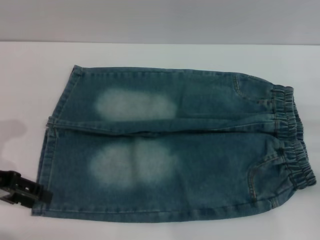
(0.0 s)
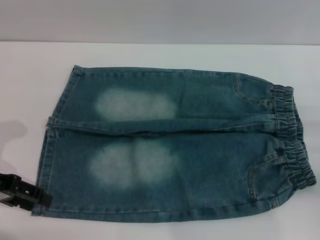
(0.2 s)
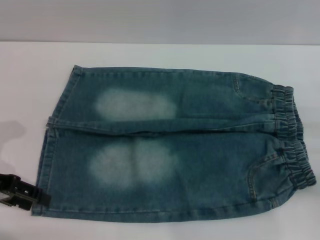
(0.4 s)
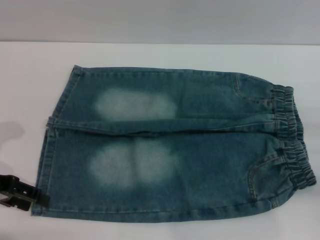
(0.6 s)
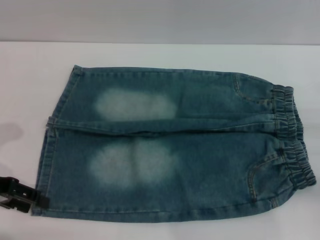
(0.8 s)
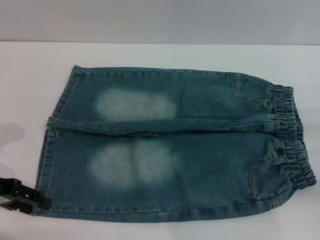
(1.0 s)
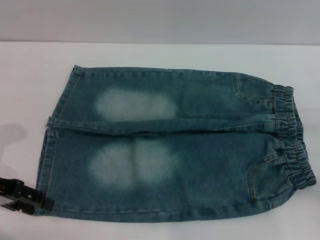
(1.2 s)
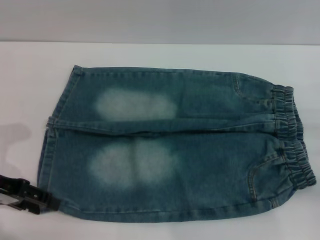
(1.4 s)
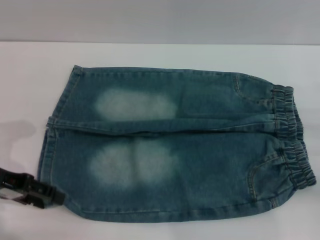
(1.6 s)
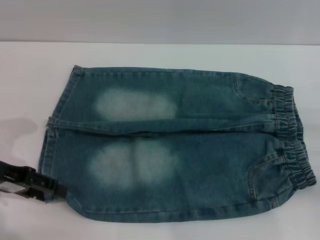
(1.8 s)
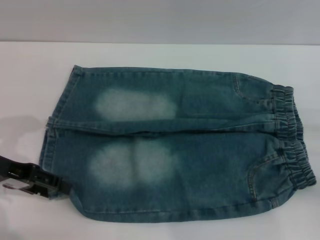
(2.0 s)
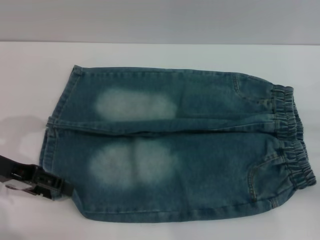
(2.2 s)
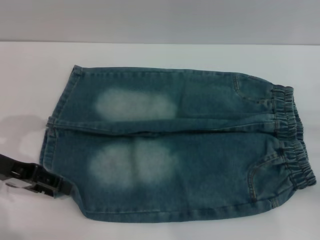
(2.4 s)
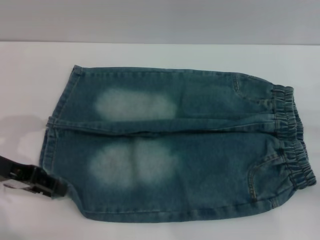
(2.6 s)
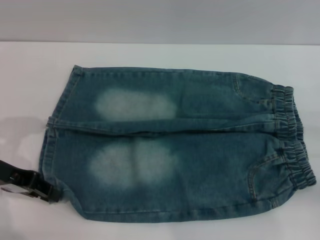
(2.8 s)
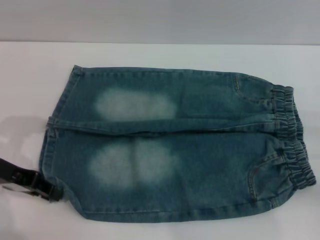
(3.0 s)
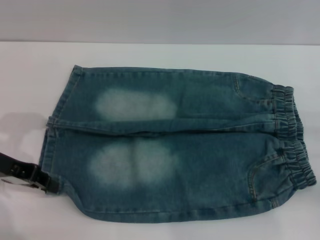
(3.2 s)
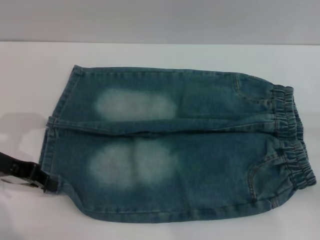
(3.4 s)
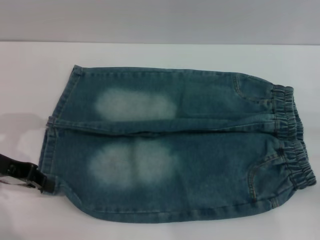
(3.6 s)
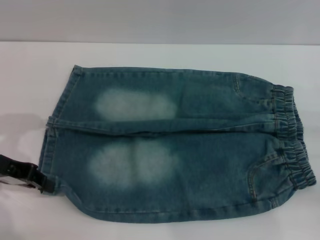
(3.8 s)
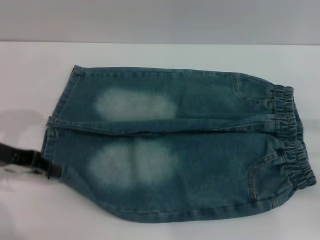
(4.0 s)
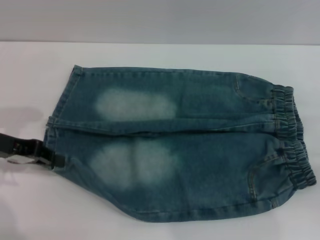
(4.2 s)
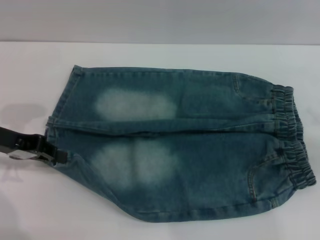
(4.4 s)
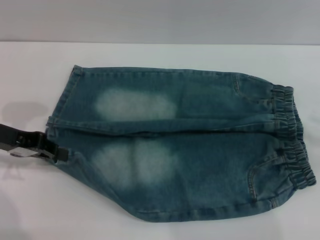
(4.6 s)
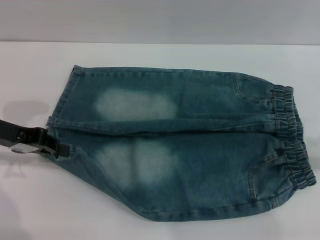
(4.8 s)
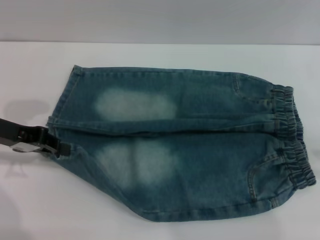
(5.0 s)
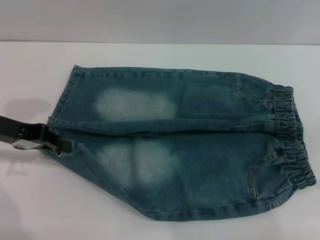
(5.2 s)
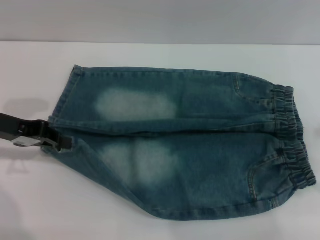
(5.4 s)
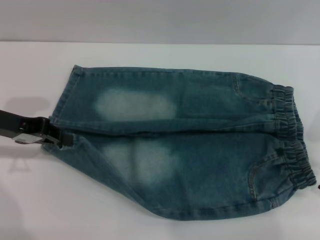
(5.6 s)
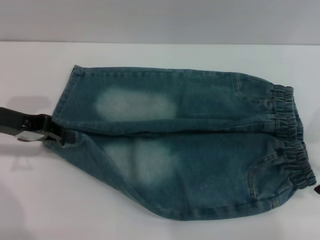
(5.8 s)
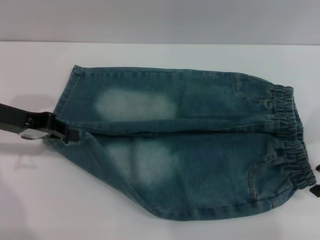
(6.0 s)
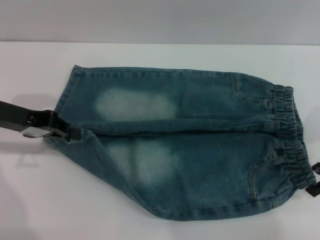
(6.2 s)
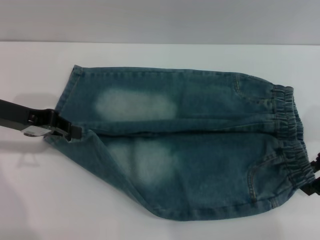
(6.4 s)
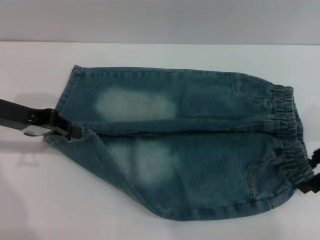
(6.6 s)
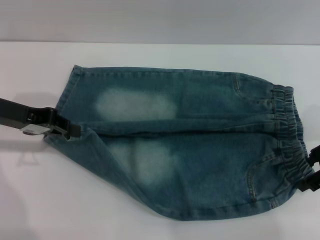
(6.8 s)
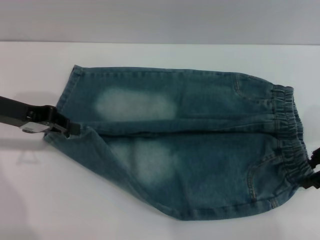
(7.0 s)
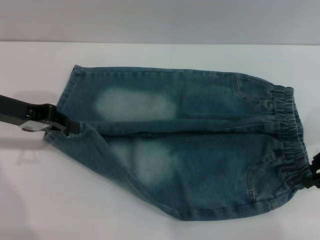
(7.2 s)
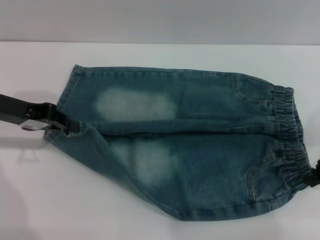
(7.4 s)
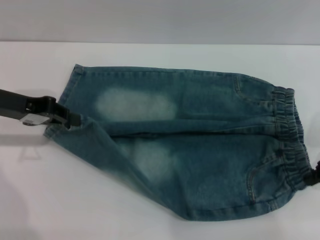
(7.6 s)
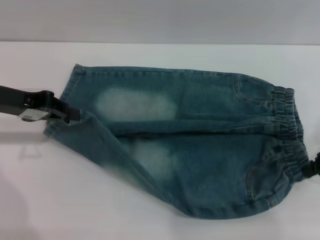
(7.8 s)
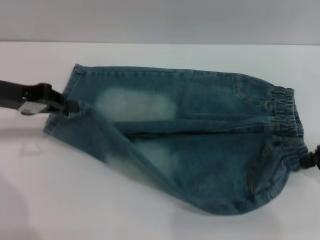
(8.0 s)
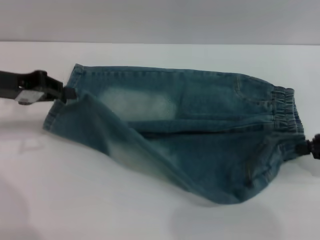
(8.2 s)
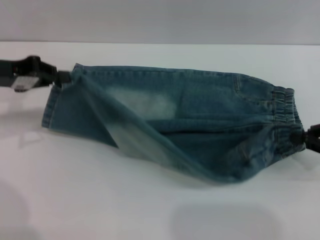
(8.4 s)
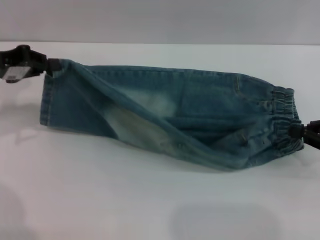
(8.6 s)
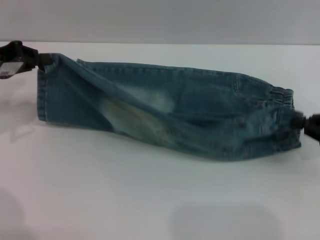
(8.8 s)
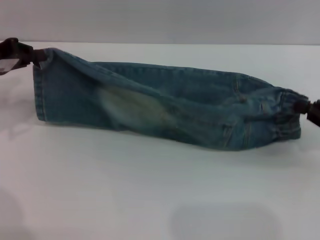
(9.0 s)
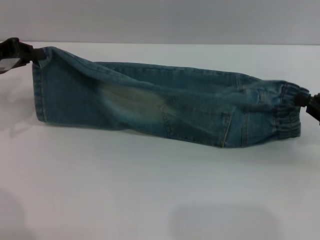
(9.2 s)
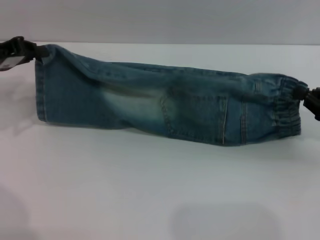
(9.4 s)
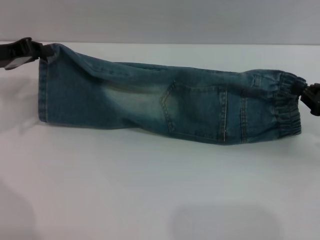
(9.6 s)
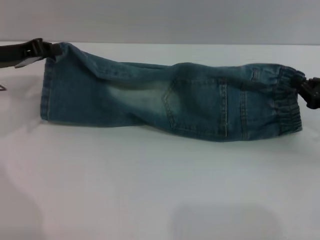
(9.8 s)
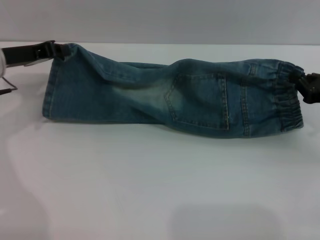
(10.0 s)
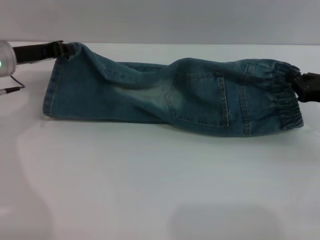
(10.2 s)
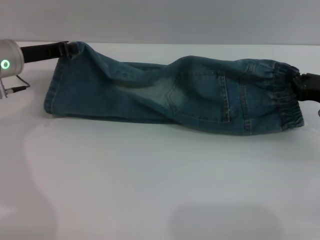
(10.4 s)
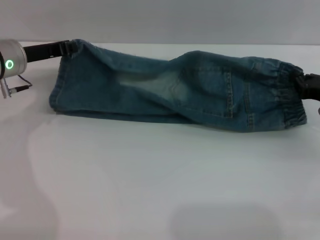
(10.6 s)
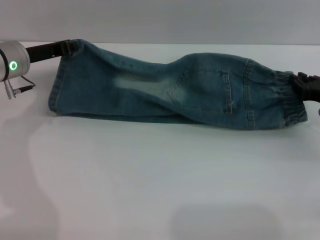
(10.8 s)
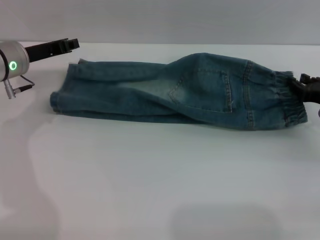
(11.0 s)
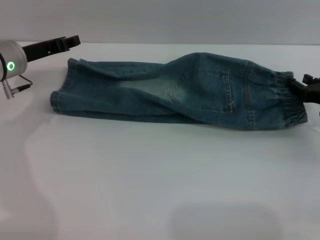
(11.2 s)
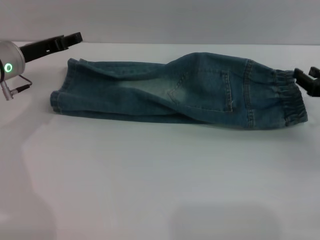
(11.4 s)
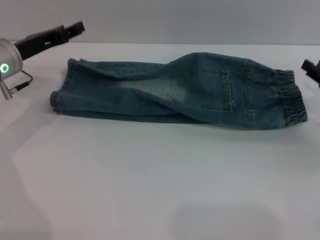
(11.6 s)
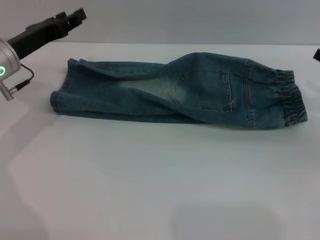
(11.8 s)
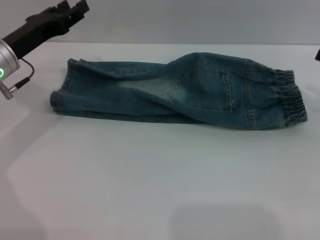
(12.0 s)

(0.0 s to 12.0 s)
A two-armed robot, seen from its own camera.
Step, 0.0 s - 11.6 s: Fold the bottom of the pants upward with both grippers.
0.0 s - 1.6 s: The grippers move only a little.
1.6 s - 3.0 s: The left gripper closes up.
3.0 s - 4.4 s: The right gripper goes some 10 cm upward.
4.4 s - 6.0 s: The right gripper shifts about 10 cm to the left and forward.
6.0 s - 7.6 s: The right gripper closes its fingers.
7.6 s - 9.0 s: The left gripper moves approximately 5 cm. The right gripper shifts by roughly 5 cm.
9.0 s - 10.4 s: The right gripper travels forward by about 5 cm, while the left gripper goes approximately 10 cm to the right.
10.4 s - 12.0 s: The right gripper travels upward and to the right by roughly 10 cm, and opens; the left gripper opens its fingers.

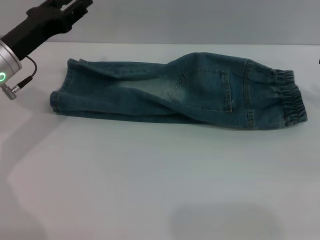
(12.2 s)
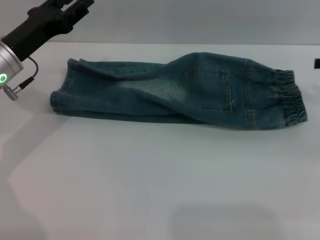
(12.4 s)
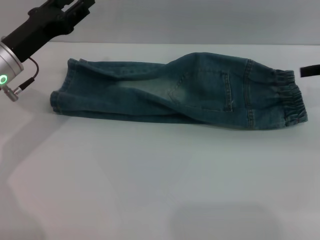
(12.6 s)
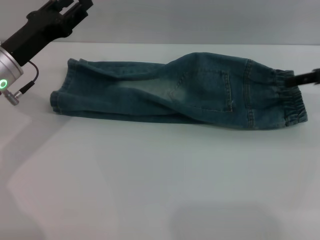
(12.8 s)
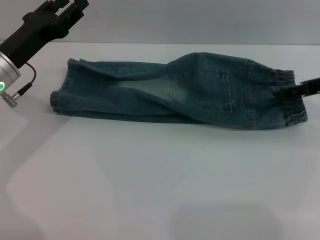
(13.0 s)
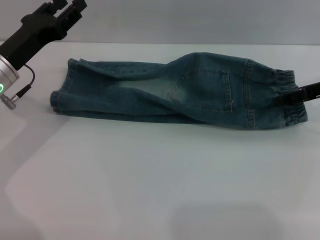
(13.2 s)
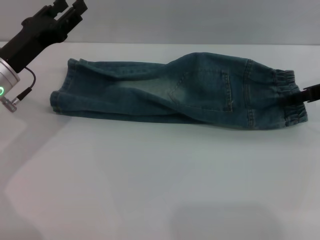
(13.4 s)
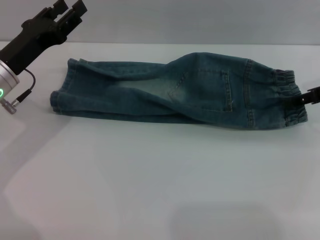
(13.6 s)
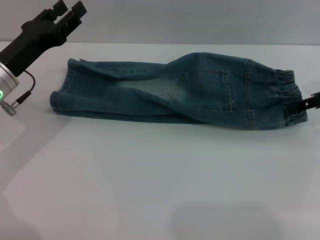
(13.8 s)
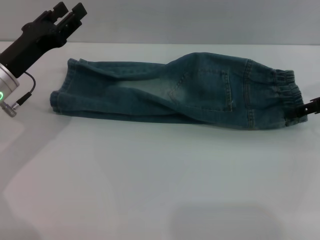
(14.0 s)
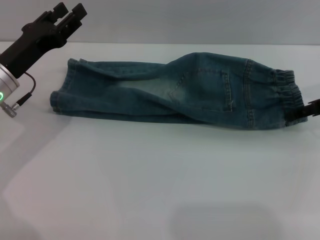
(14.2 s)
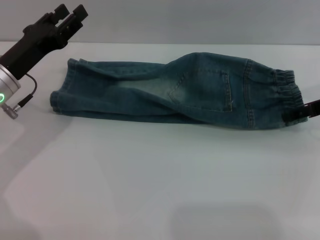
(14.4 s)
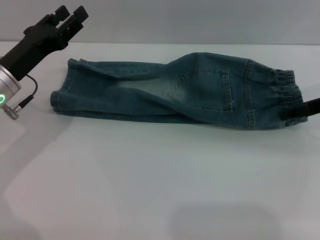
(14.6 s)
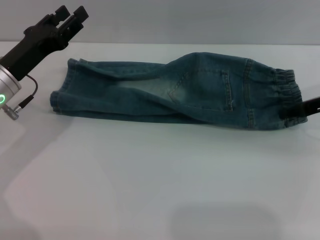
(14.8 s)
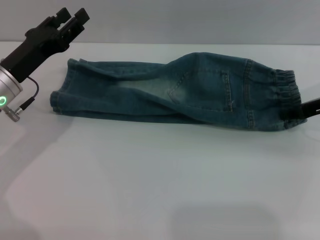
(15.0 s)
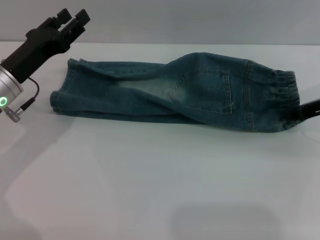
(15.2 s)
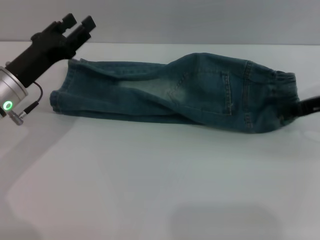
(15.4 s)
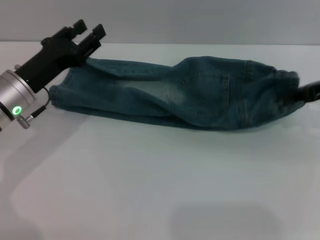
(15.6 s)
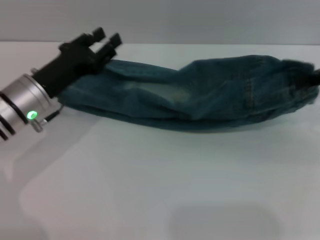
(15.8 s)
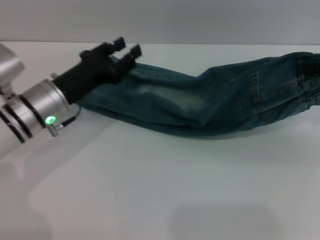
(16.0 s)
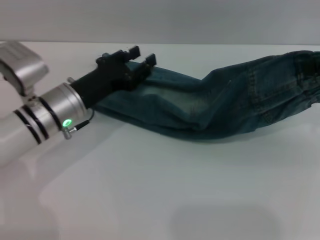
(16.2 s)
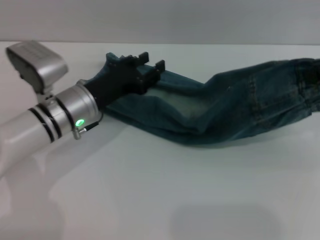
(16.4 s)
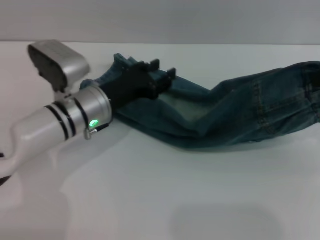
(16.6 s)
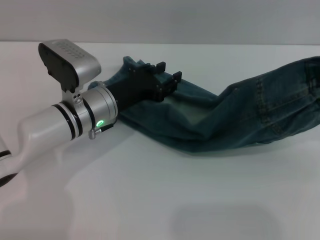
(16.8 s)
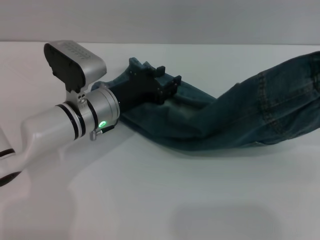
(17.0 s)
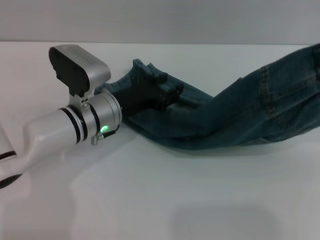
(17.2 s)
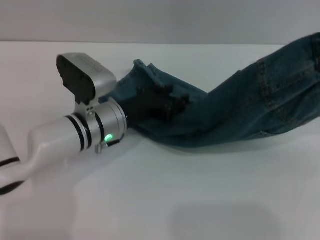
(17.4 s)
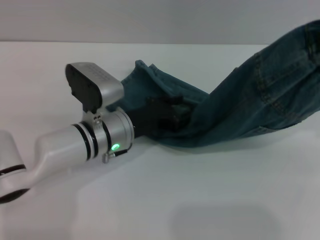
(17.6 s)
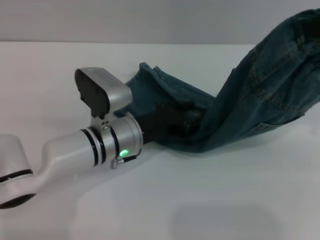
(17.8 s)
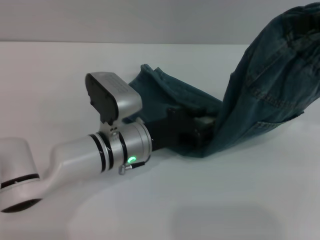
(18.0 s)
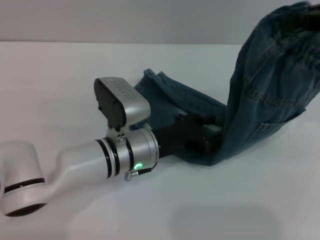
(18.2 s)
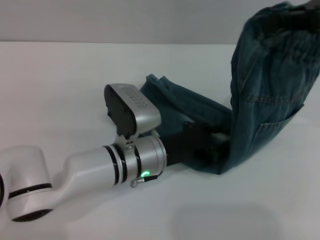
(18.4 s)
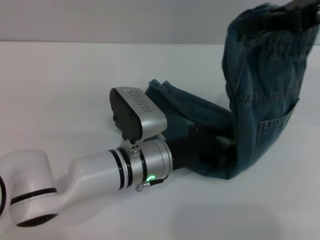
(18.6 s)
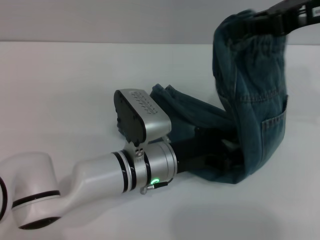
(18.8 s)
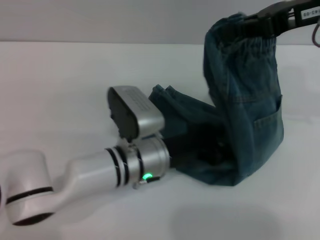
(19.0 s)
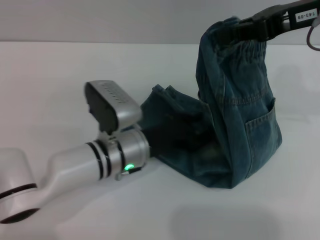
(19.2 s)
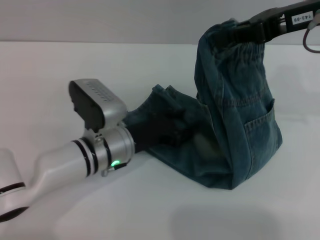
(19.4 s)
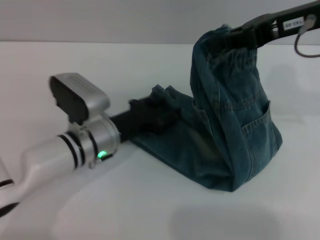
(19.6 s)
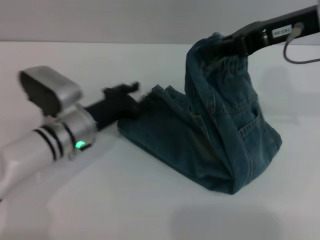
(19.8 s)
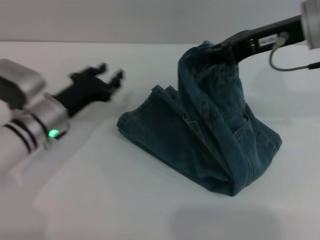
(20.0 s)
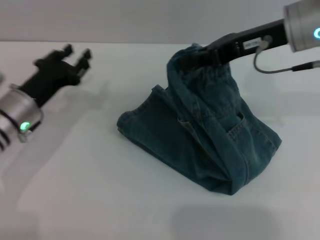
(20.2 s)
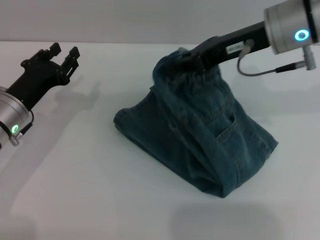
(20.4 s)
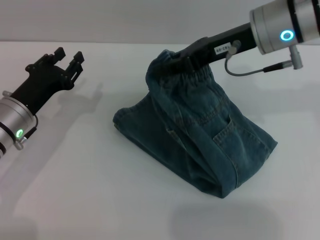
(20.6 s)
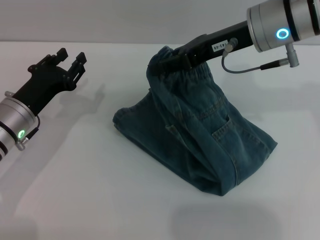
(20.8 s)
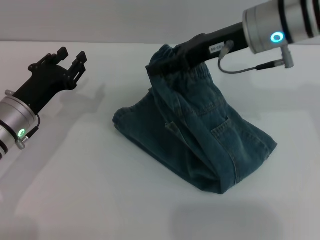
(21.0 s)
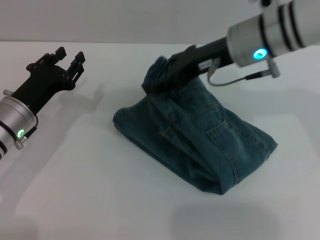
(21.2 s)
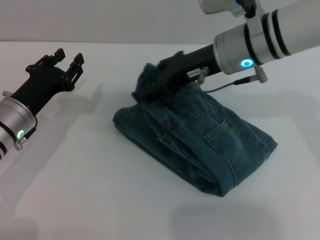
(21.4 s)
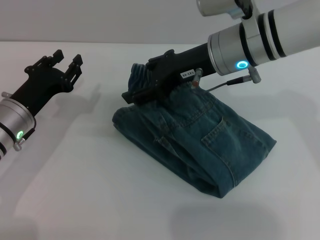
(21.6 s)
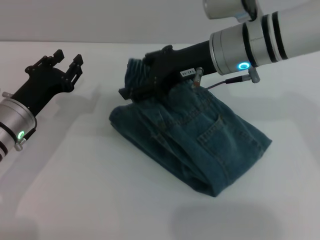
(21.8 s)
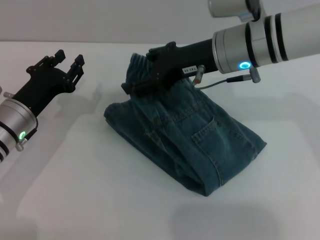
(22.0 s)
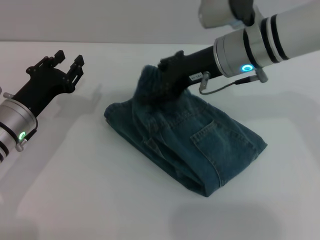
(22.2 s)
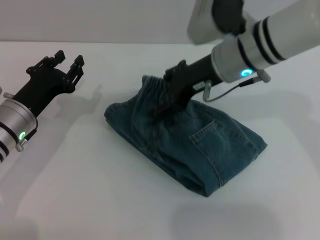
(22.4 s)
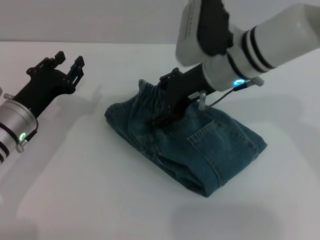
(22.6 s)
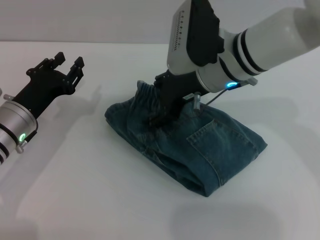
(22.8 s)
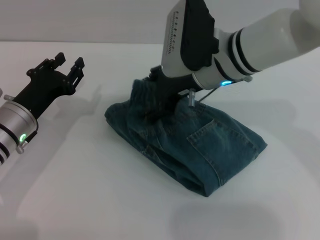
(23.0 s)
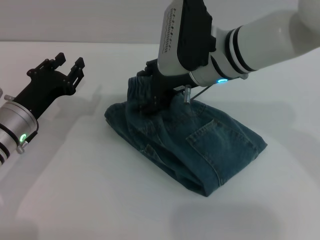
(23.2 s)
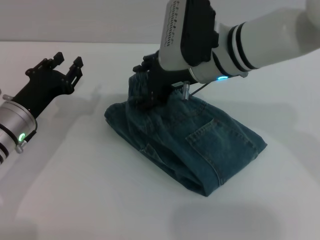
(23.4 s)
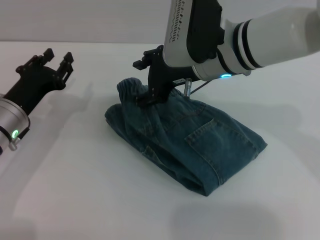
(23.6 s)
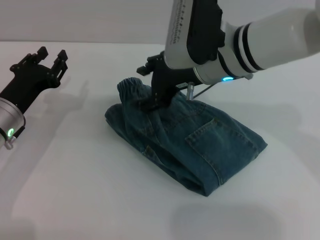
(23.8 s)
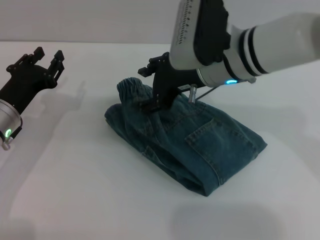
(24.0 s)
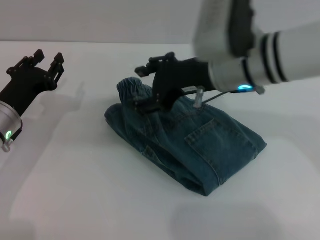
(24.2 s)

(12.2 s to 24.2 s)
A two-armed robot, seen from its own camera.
Step, 12.2 s - 23.6 s: Fold the pants from right to left with the right gripper.
13.8 s - 15.2 s: The right gripper closes up.
15.2 s - 16.6 s: The left gripper shifts some 10 cm to the right. Meanwhile the right gripper moves upward and backward, some 15 cm.
16.6 s - 18.2 s: The right gripper ends up roughly 5 cm from where it was; the left gripper heads to the right, covering some 5 cm.
18.2 s - 19.8 s: The left gripper heads to the left, covering roughly 10 cm. Meanwhile the right gripper is displaced to the left, forward and downward by approximately 10 cm.
19.8 s - 21.2 s: The left gripper heads to the left, covering about 10 cm. Meanwhile the right gripper travels to the left and downward by approximately 10 cm, and opens its fingers.
22.6 s - 24.2 s: The grippers make only small movements.
